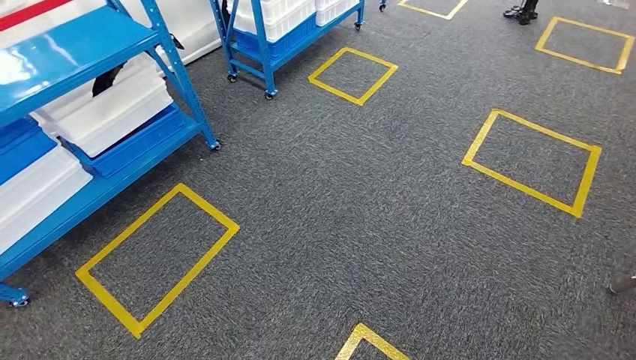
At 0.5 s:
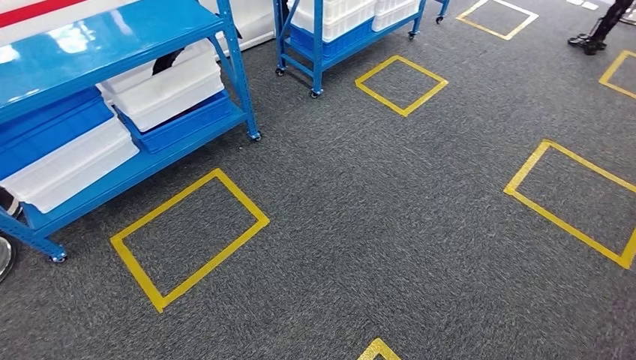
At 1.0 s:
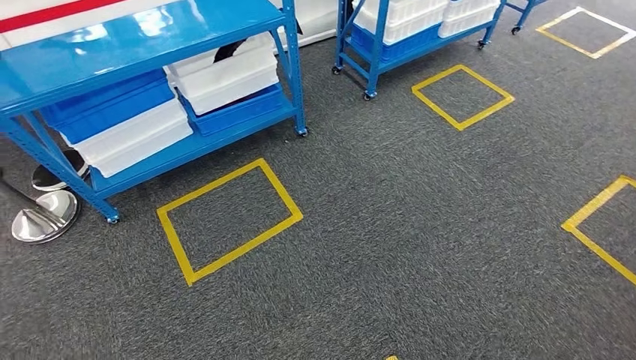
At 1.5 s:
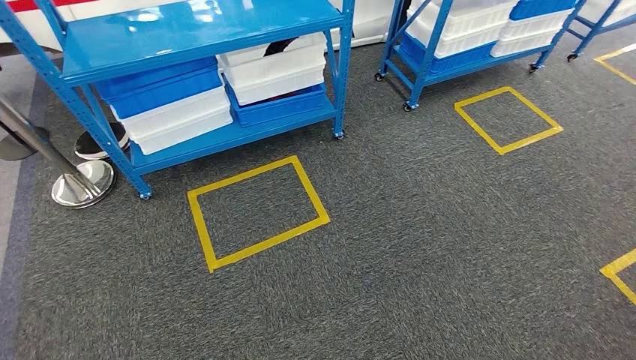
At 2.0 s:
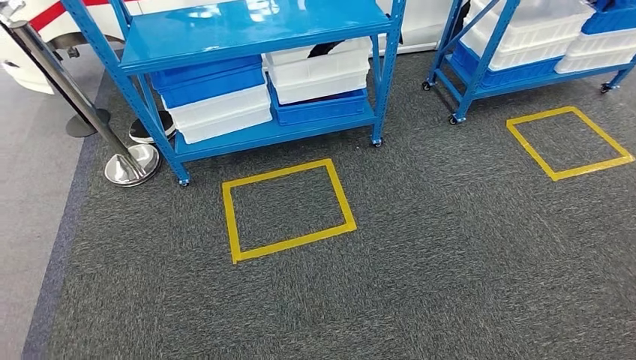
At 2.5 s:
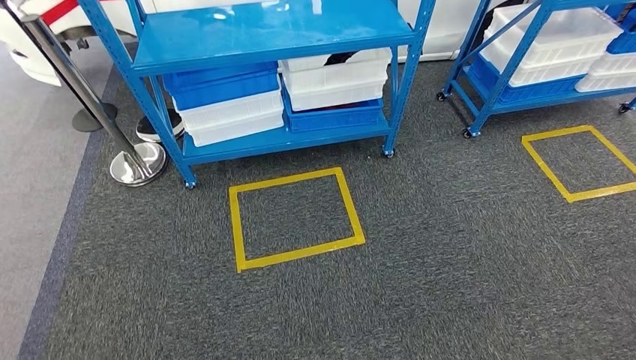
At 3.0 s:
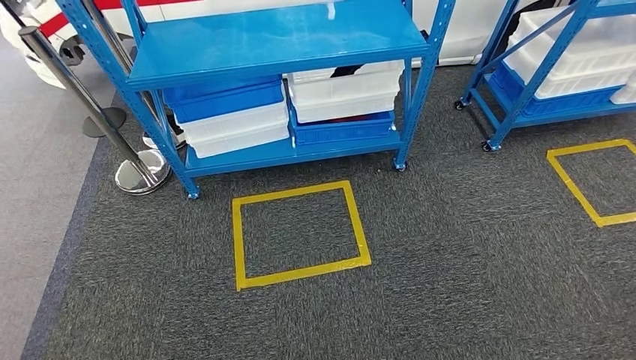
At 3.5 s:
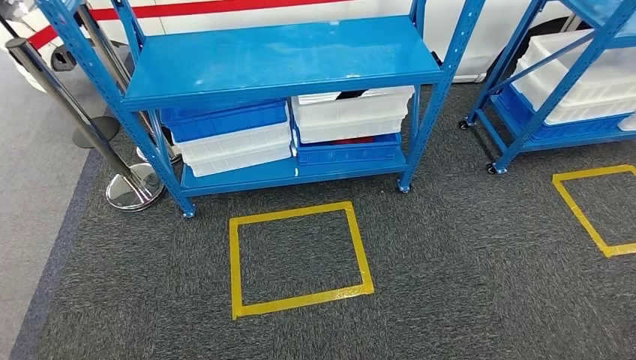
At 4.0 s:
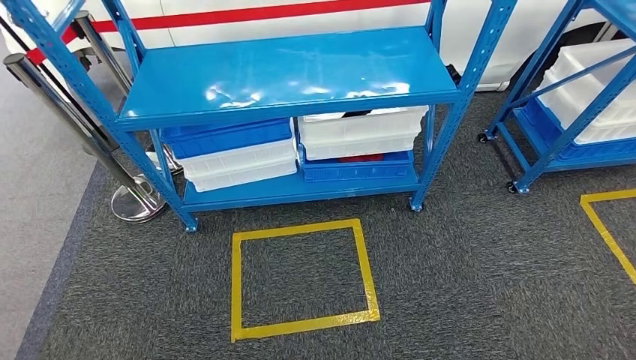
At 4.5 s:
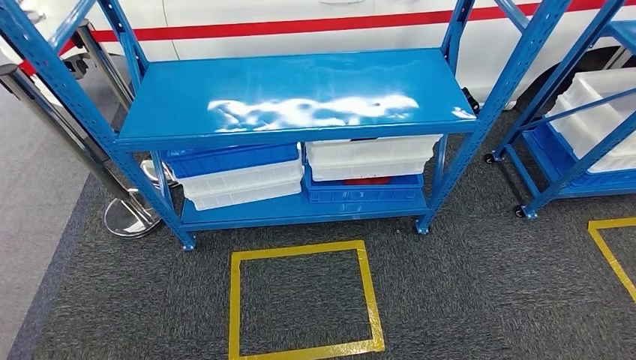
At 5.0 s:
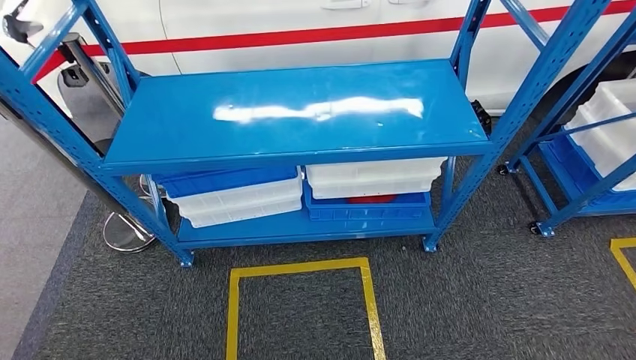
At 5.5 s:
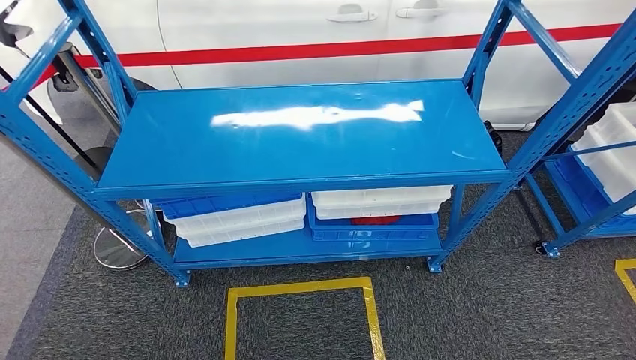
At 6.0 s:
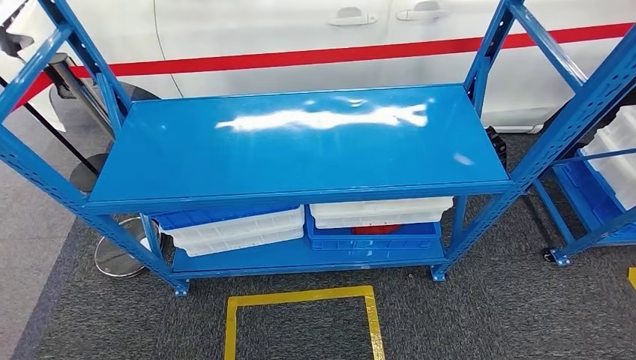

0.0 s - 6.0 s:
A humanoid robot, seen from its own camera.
Step, 0.0 s - 6.0 s: Return to the initial position at the shelf.

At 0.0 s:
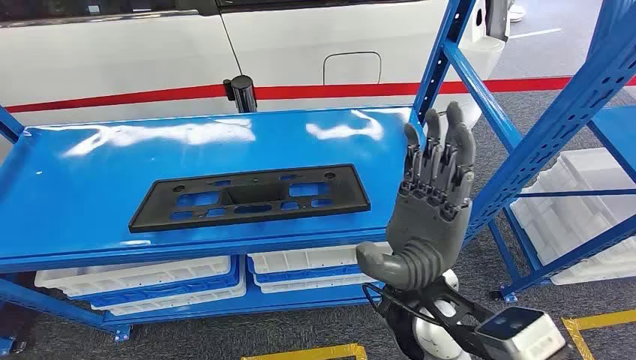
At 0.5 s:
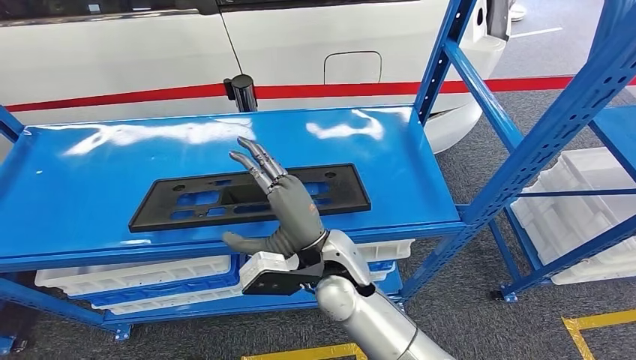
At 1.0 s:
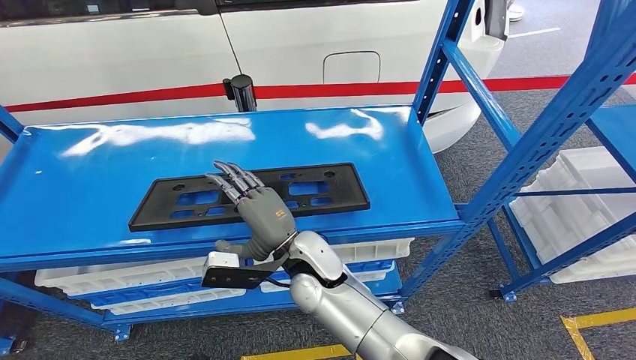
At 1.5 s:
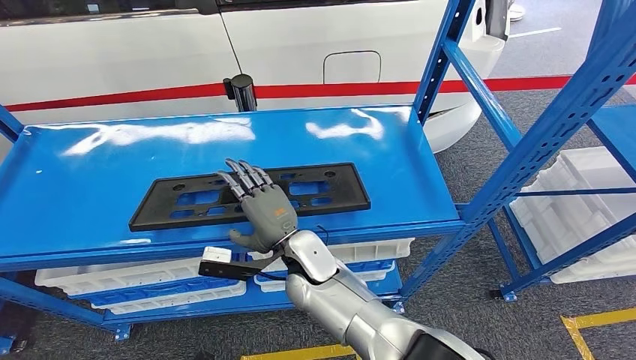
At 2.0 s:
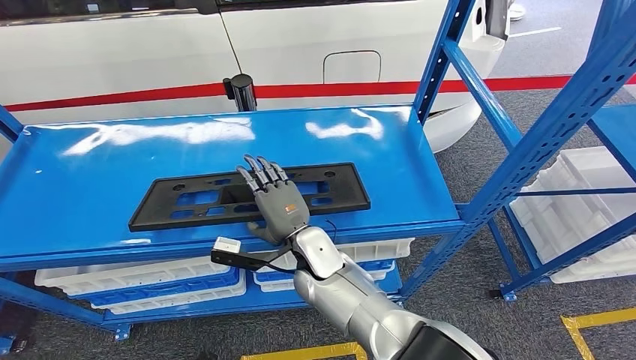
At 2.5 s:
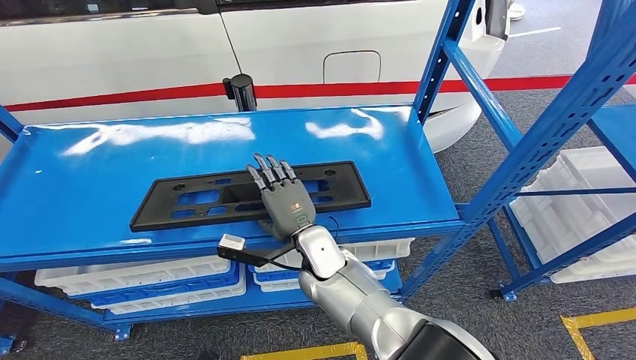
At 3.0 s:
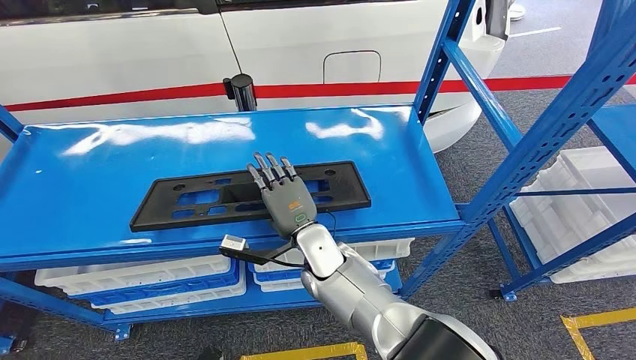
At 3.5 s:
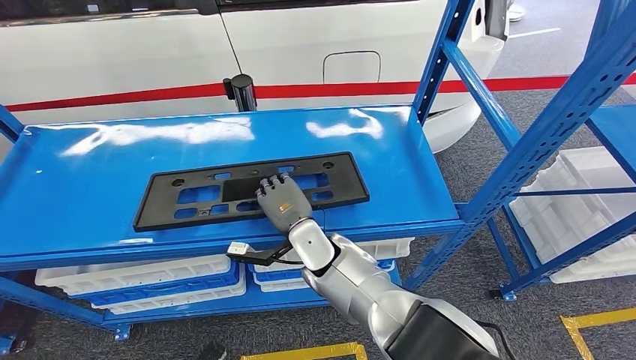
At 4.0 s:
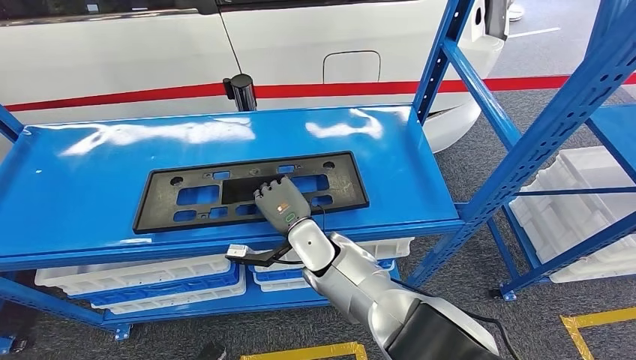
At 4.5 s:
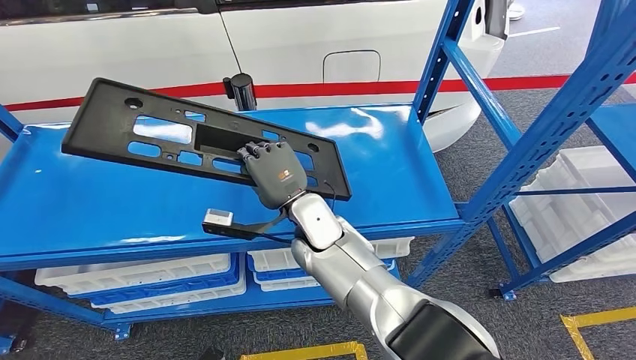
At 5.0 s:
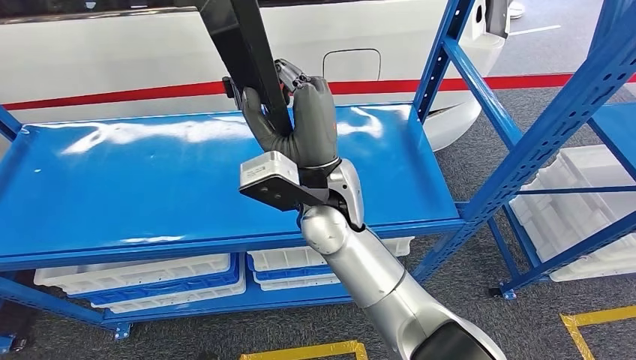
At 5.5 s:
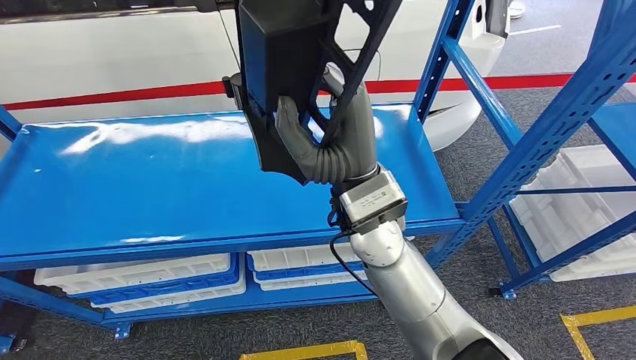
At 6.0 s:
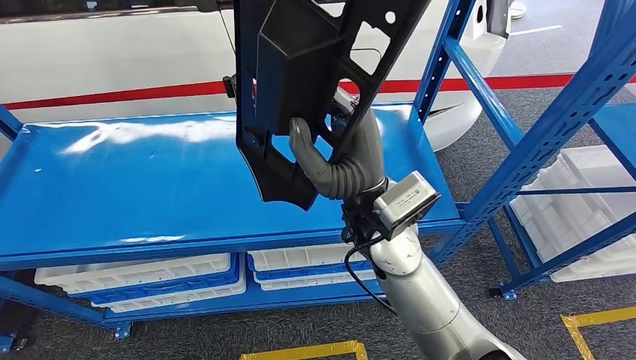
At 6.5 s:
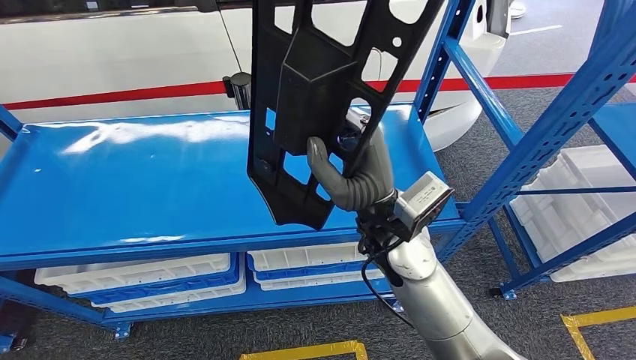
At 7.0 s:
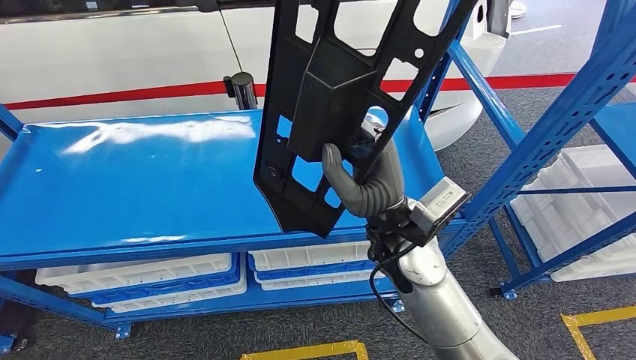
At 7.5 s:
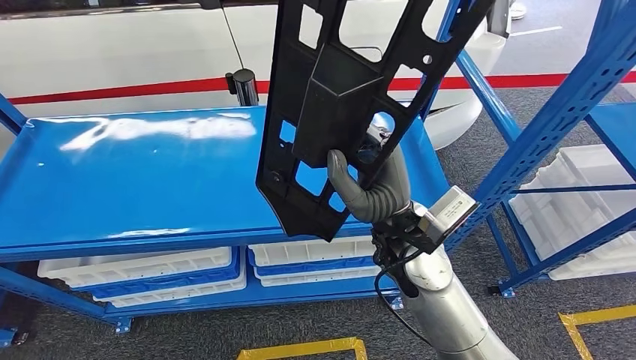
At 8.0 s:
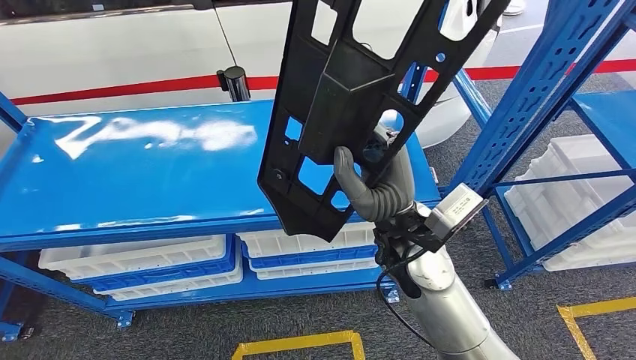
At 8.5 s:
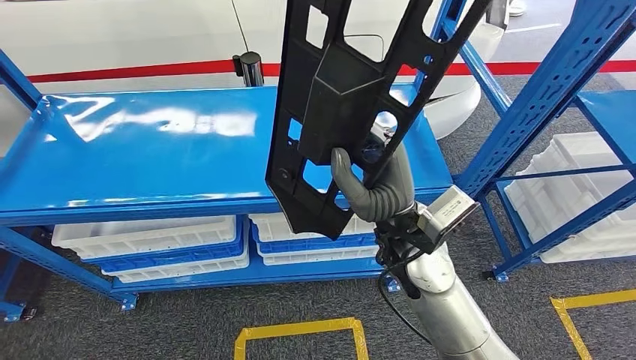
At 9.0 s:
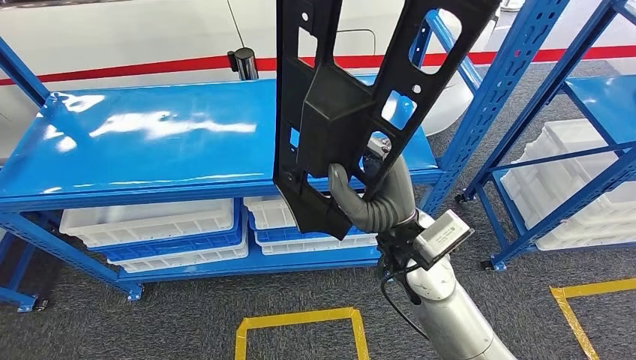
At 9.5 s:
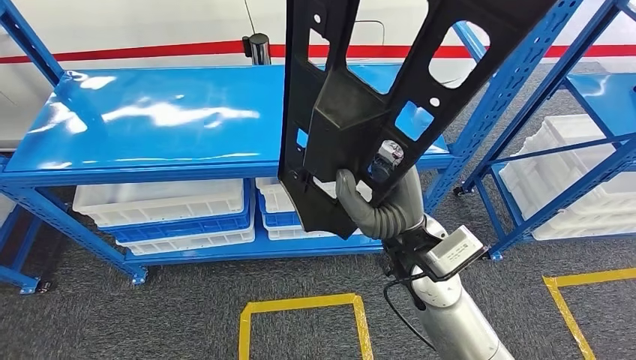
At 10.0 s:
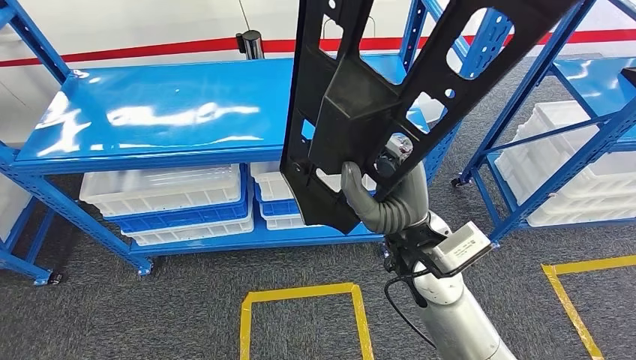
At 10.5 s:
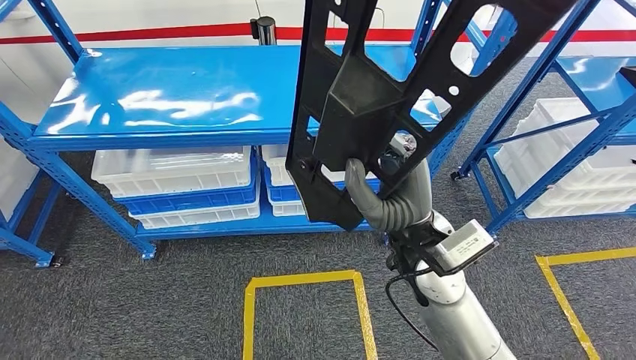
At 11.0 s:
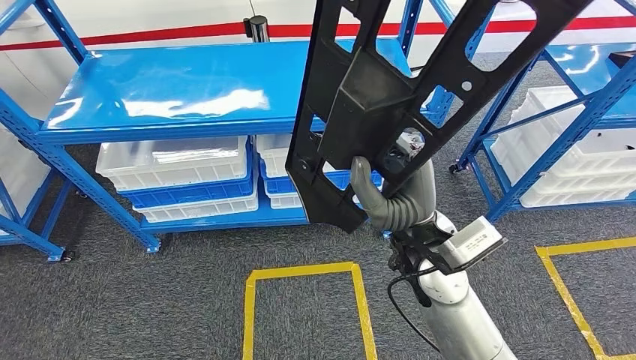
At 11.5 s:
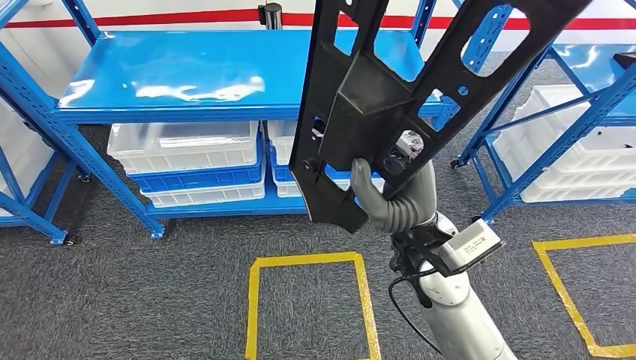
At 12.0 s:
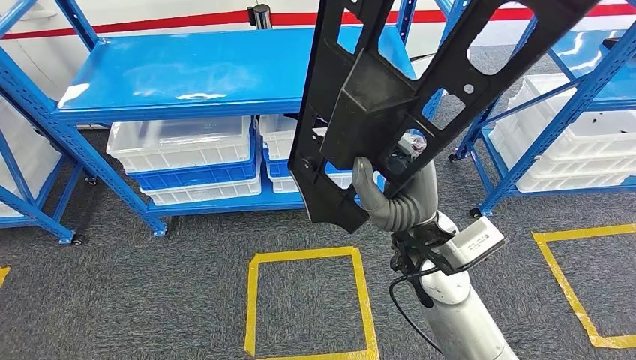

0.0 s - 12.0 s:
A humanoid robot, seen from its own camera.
Step, 0.0 s - 10.0 s: Pick up the large material from the shelf.

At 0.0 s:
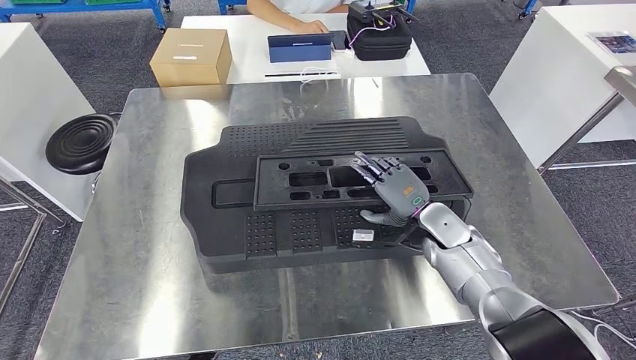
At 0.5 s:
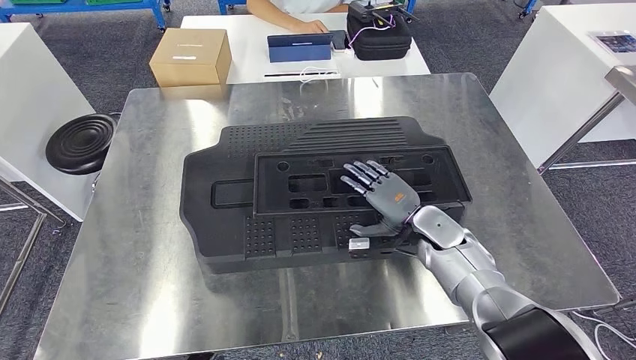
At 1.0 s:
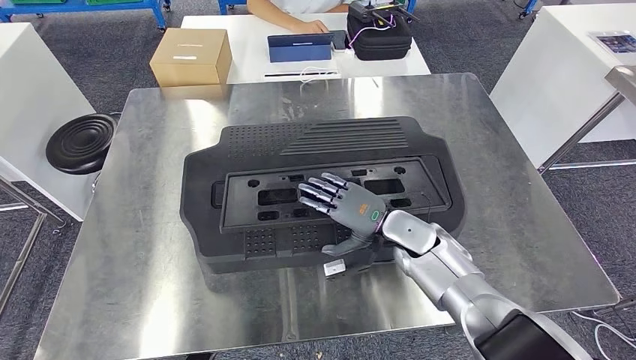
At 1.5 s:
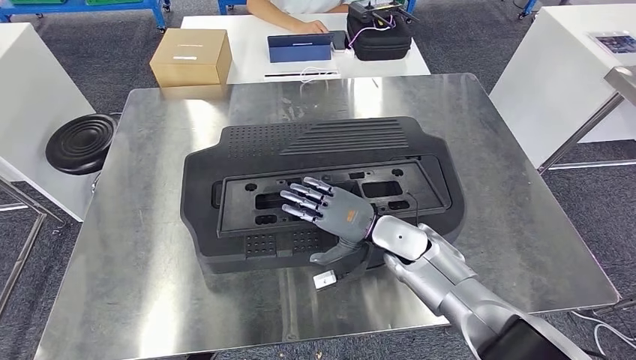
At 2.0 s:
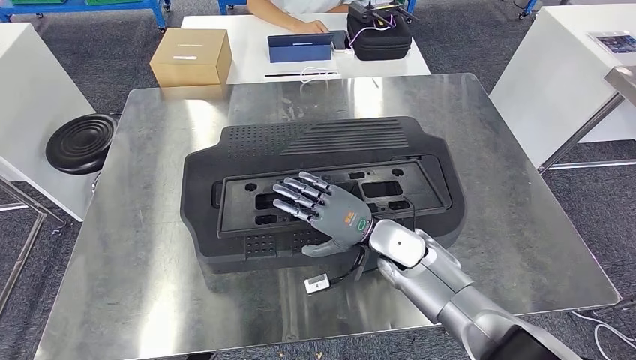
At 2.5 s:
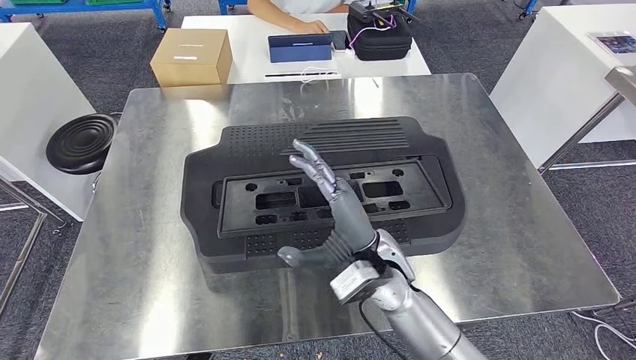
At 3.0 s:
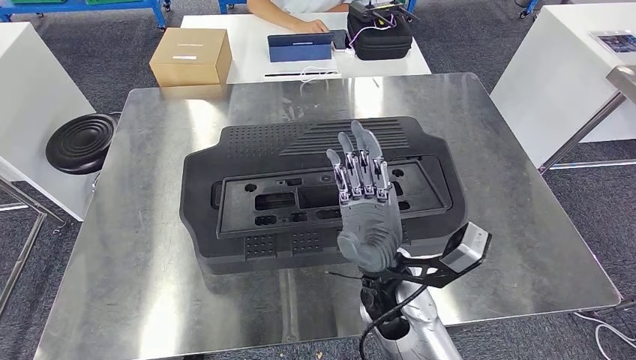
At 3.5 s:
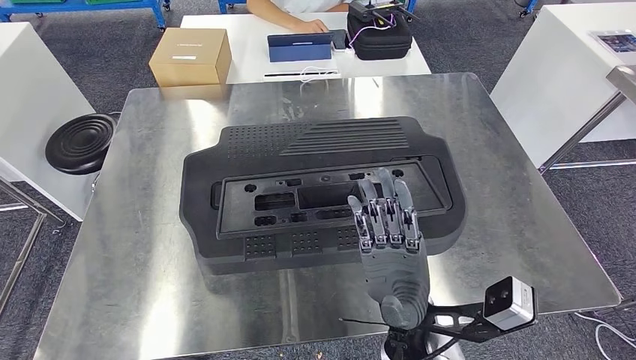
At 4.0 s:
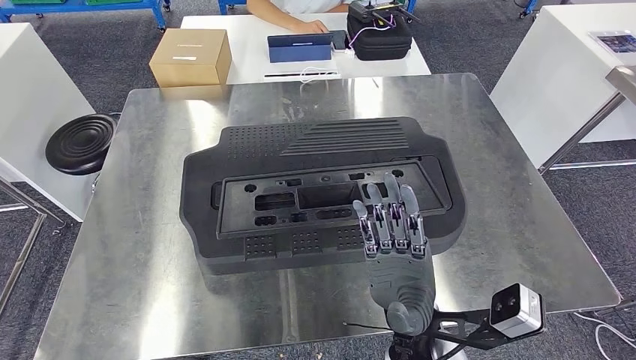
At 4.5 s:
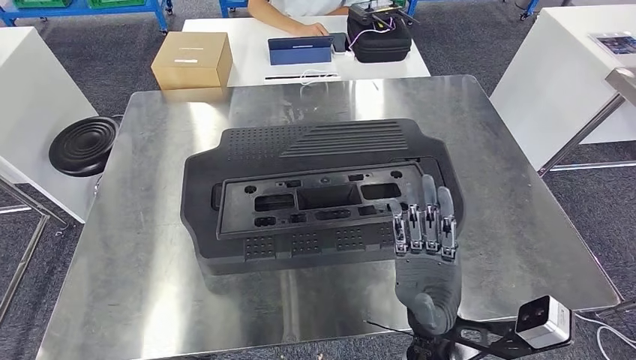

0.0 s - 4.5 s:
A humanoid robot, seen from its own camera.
Step, 0.0 s - 2.5 s: Insert the large material into the corresponding slot on the workbench.
0.0 s - 2.0 s: The right hand is displaced to the left by approximately 10 cm.
2.0 s - 4.5 s: The right hand heads backward, covering approximately 15 cm. Meanwhile the left hand shifts approximately 5 cm backward.
